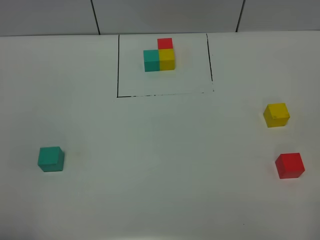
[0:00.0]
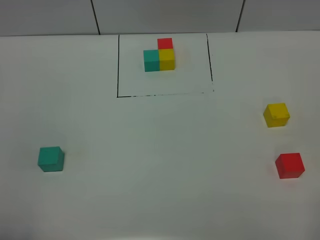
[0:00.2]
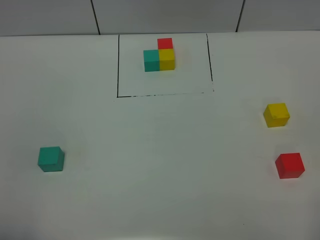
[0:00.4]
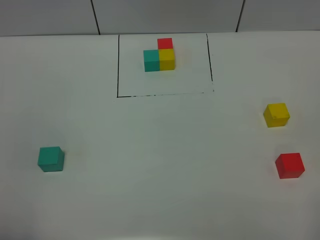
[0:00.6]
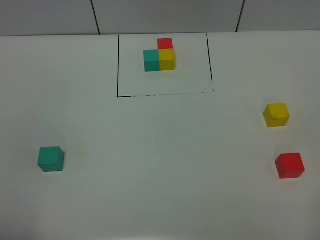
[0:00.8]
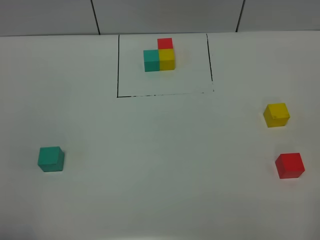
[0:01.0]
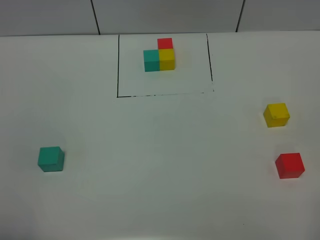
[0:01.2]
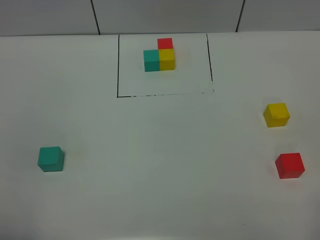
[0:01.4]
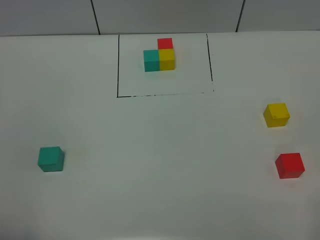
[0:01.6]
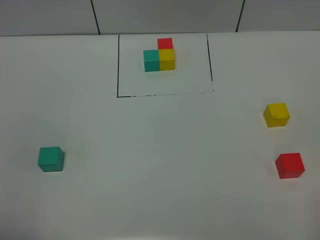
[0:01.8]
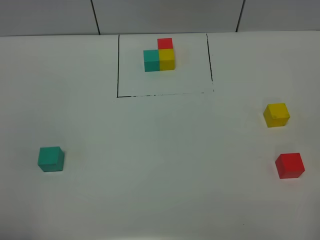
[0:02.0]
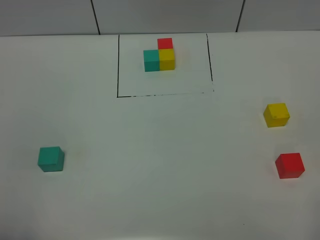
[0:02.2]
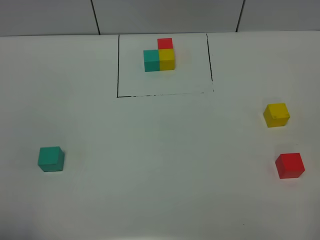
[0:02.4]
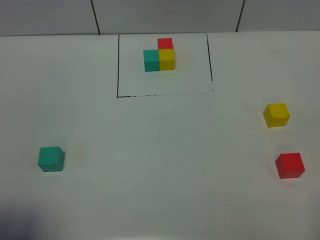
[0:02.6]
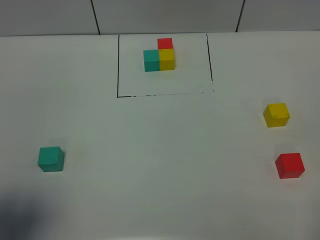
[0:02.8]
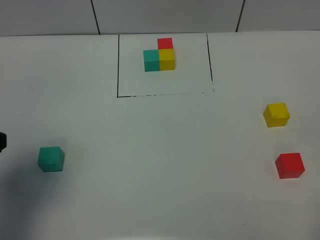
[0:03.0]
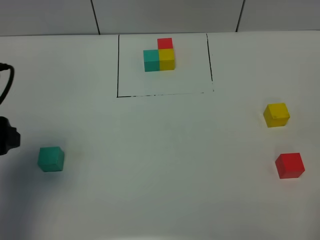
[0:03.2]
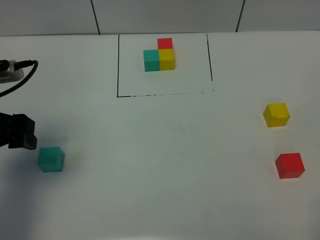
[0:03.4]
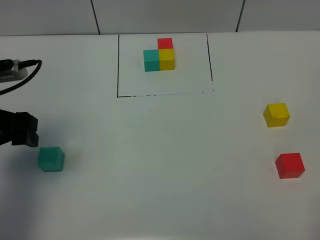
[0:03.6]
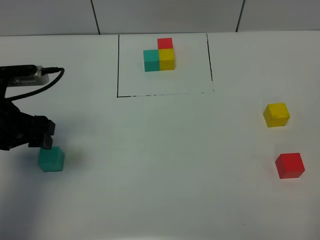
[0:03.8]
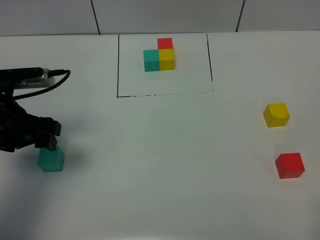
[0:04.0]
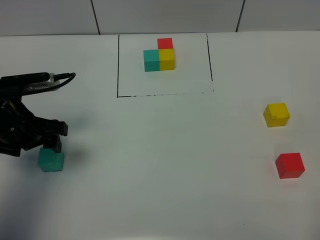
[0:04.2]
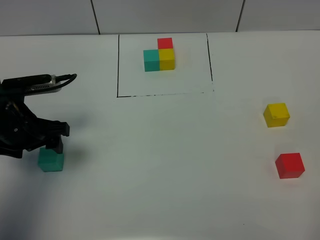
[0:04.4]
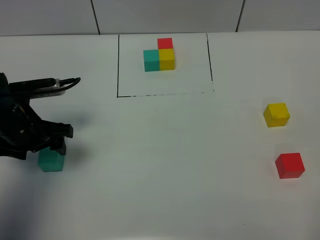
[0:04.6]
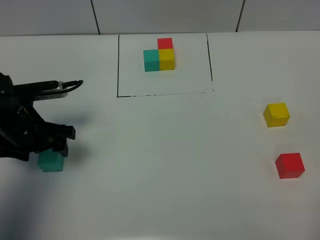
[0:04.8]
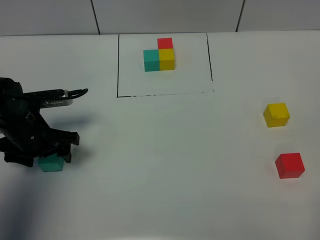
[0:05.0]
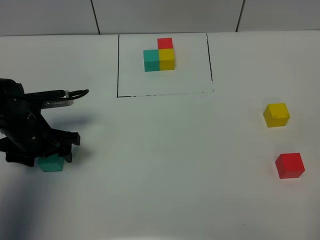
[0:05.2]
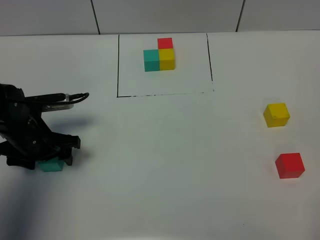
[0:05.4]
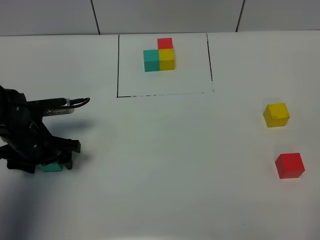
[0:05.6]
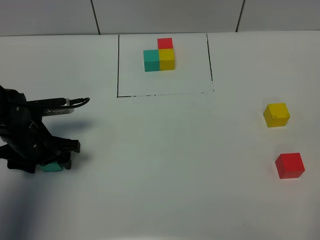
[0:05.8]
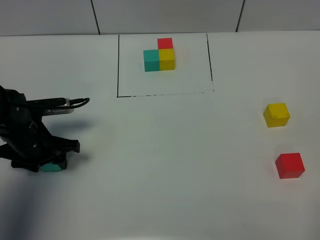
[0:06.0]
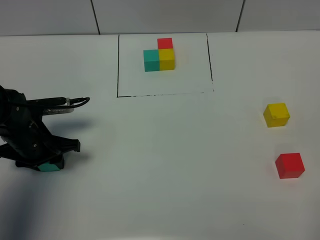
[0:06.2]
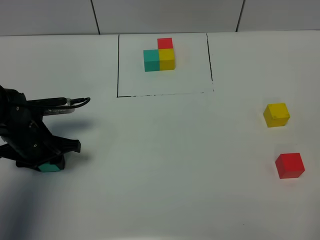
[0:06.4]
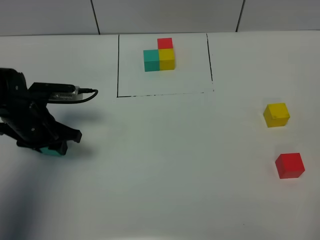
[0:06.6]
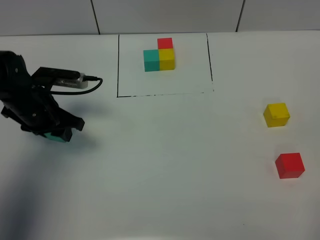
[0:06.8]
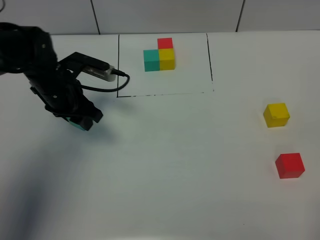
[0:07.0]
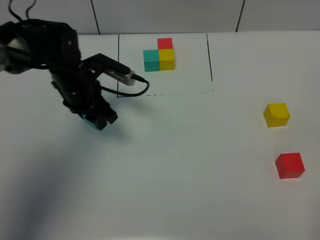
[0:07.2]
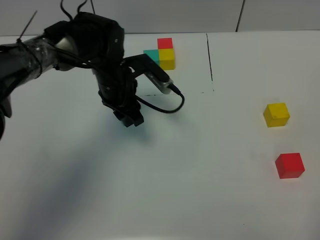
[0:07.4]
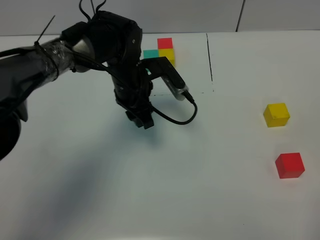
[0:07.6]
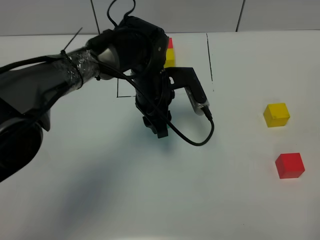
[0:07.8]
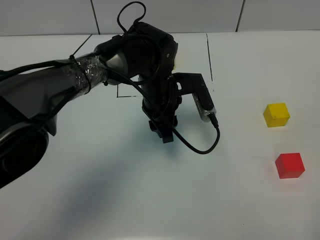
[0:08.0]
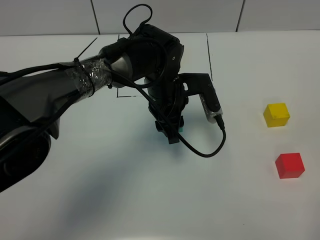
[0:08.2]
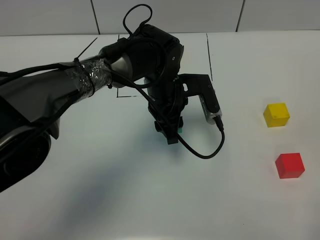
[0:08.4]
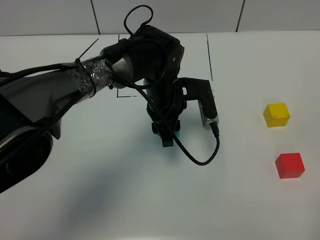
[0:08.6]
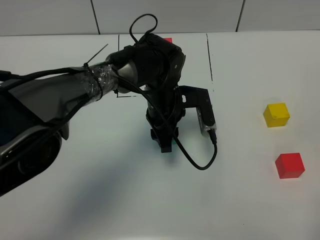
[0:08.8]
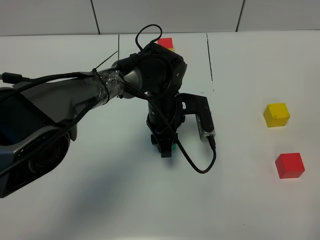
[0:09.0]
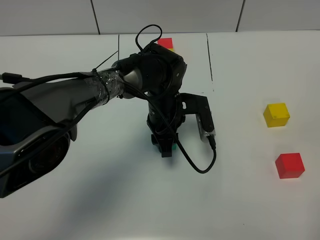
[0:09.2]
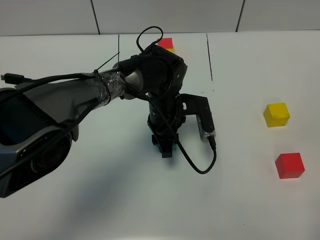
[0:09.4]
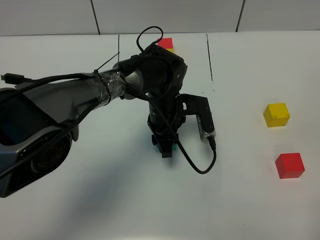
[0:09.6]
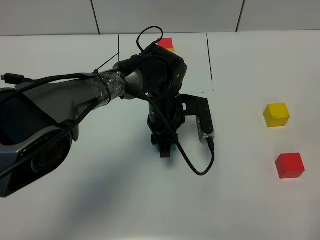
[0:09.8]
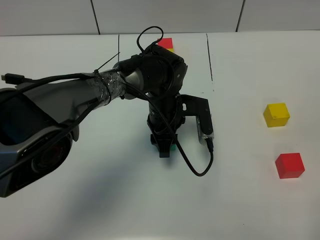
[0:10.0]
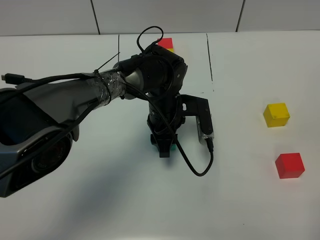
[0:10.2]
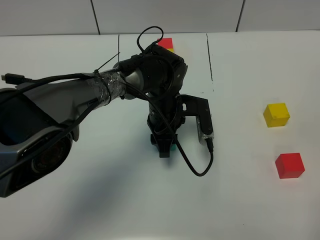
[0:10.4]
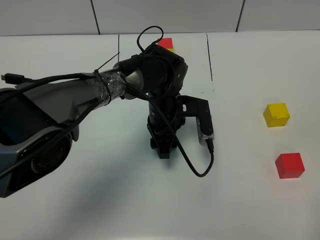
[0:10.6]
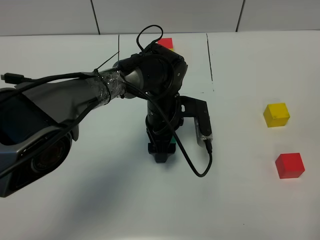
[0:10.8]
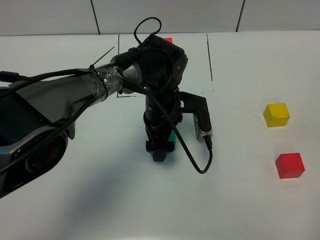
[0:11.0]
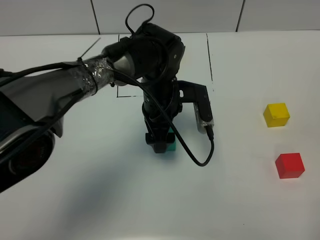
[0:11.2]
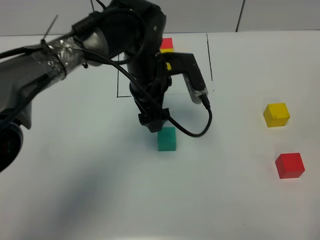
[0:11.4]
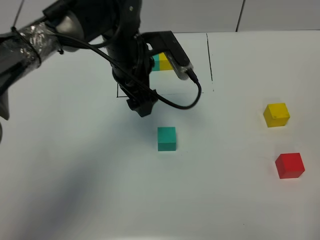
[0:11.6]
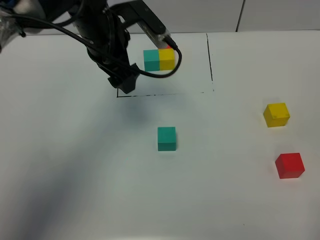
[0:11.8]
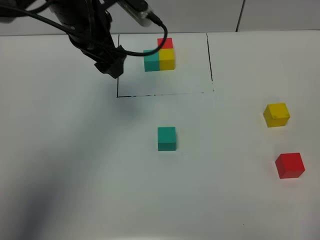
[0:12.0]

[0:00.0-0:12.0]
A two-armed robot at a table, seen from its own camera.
Task of the whole recording: According to the building block template in front, assemble the scattered blocks together.
Step, 0:00.0 to 0:10.6: Put the green build block in the center of the table.
0:00.0 to 0:01.6: Both grippers stay about where they are.
0:01.6 to 0:03.0: The left gripper shifts about 15 cm forward.
0:03.0 to 0:04.4: The left gripper shifts about 15 cm forward and downward.
0:04.4 to 0:06.0: The left gripper heads downward, covering roughly 5 cm, and closes its fingers.
0:06.0 to 0:07.6: The left gripper travels to the right and forward by approximately 20 cm.
0:07.6 to 0:09.0: The left gripper travels to the right by approximately 5 cm.
0:09.0 to 0:10.4: Both grippers stay put.
0:10.4 to 0:12.0: The left gripper goes some 25 cm upward and to the left, and opens.

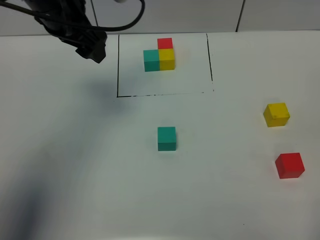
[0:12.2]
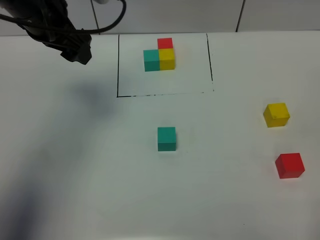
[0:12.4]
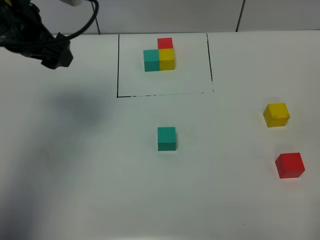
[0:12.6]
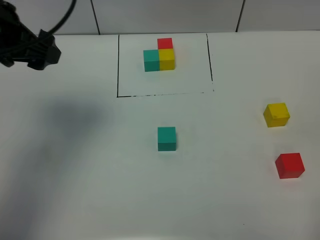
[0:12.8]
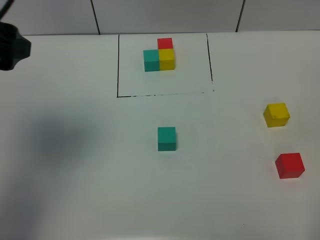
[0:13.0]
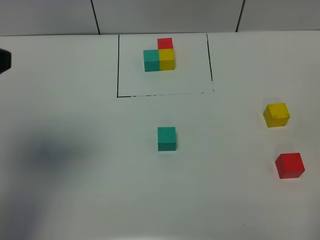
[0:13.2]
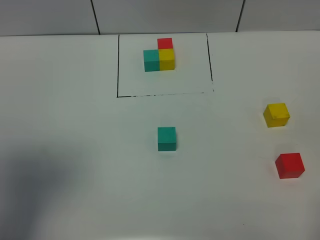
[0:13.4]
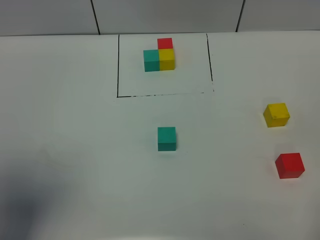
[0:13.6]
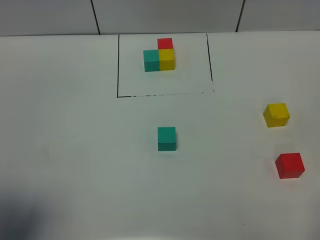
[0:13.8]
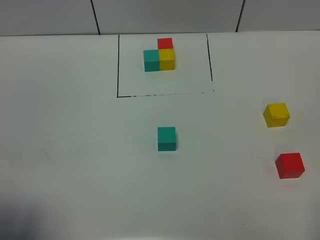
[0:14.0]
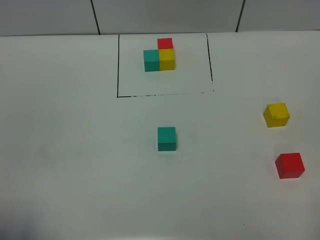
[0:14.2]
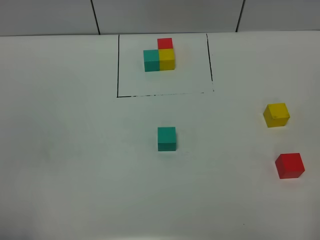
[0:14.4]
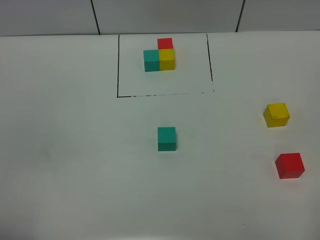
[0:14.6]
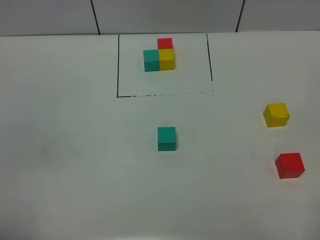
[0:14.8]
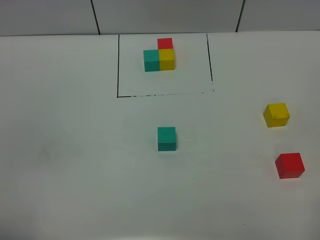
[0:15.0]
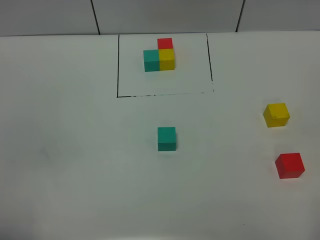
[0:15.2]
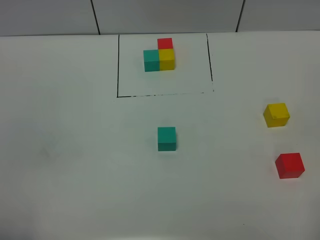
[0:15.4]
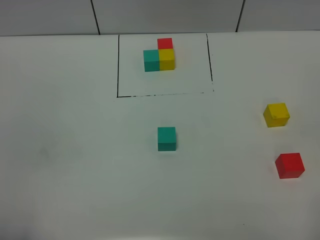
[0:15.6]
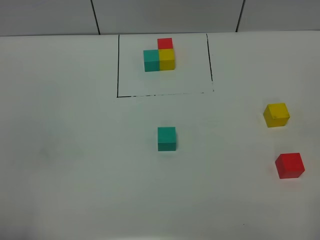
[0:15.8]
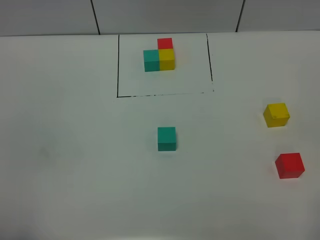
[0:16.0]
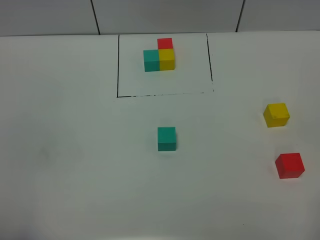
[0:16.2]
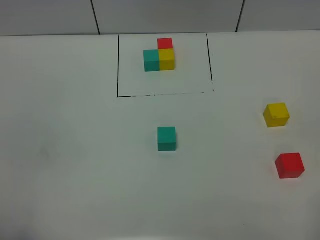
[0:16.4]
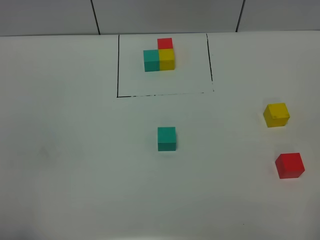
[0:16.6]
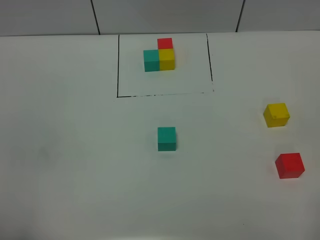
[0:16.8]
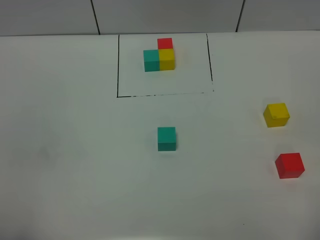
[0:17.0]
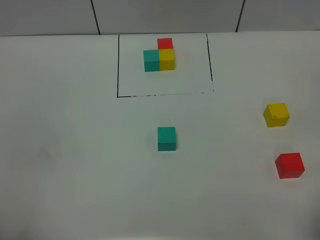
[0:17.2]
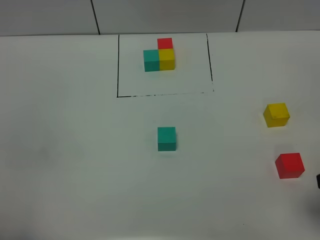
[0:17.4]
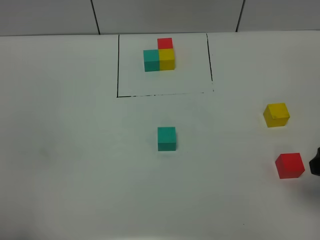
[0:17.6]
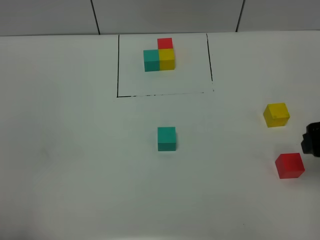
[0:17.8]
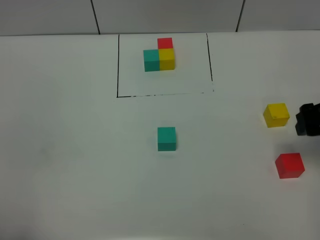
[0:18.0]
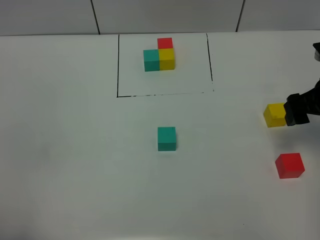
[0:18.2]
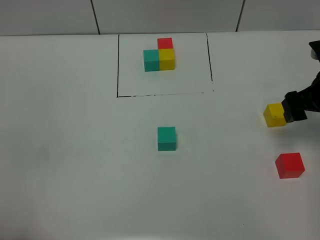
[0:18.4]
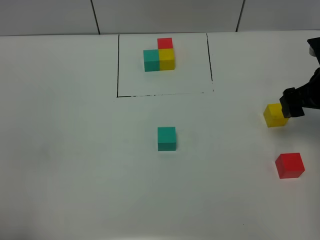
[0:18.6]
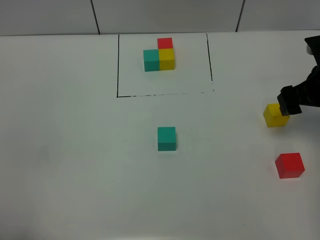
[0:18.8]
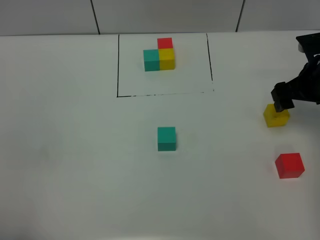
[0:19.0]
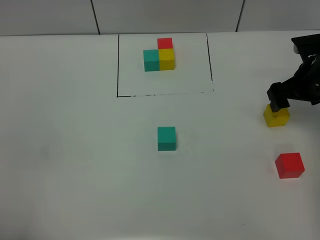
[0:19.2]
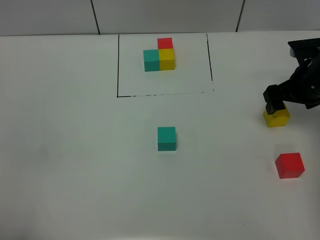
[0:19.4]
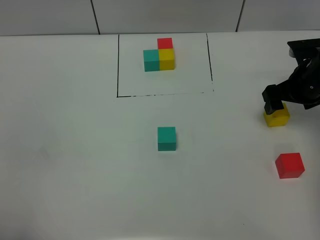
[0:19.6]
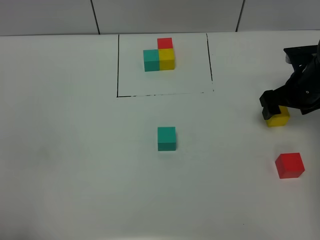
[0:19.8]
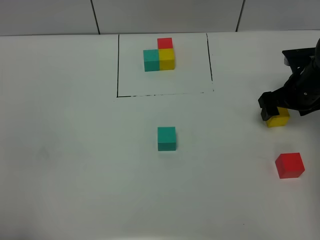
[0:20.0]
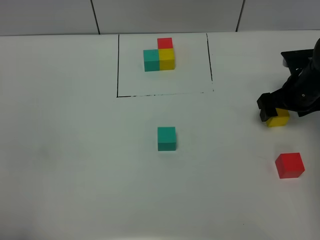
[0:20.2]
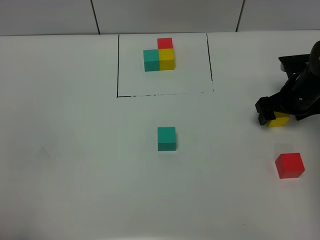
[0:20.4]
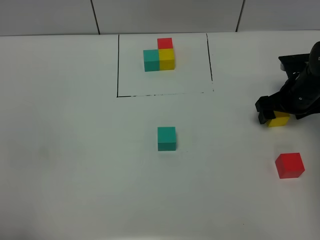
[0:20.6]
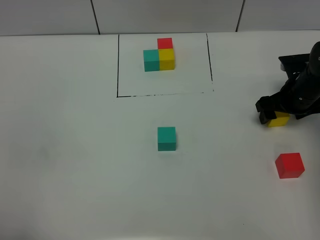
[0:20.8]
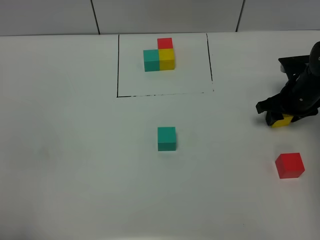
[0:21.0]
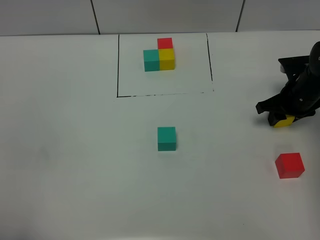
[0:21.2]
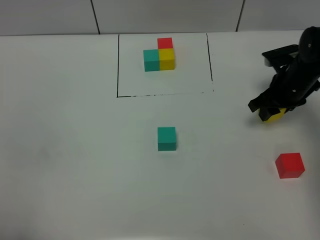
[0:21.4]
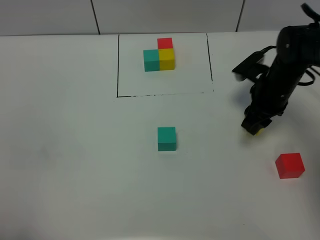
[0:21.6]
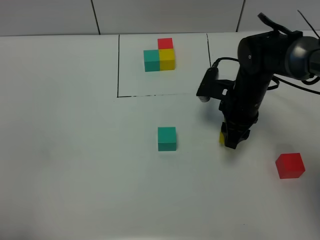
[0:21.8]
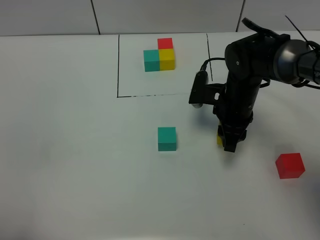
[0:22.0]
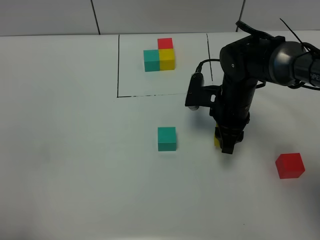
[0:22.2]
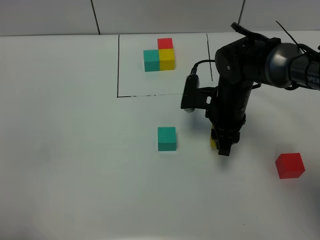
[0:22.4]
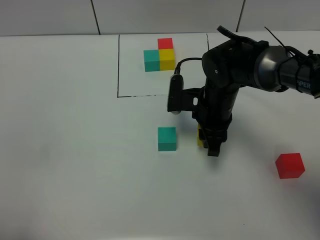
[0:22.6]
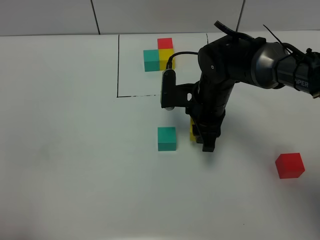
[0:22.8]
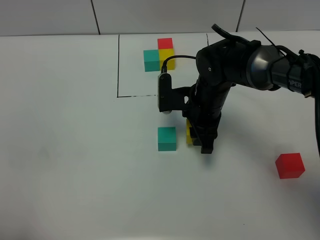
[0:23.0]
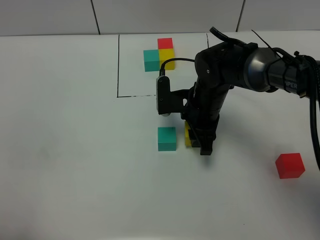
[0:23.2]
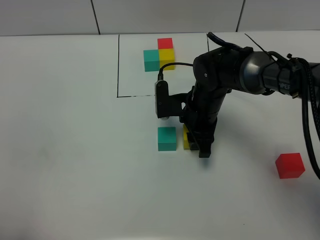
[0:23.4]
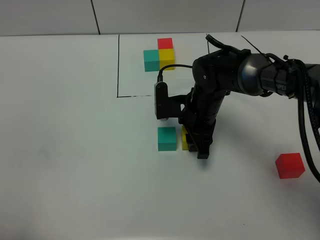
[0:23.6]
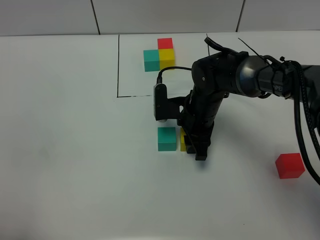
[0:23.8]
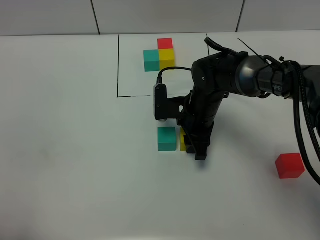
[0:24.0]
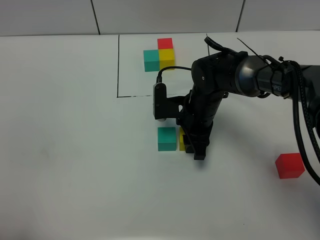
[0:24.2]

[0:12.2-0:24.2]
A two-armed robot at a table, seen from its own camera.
Task of the whole recording: According to the building block template in front, assemble the scattered blocks together.
0:12.2 to 0:13.8: The left gripper shifts some 35 cm backward.
0:13.8 to 0:15.2: The left gripper travels backward and downward by some 10 cm.
0:16.6 to 0:18.2: The right gripper goes approximately 30 cm forward.
0:18.2 to 0:19.8: The right gripper shifts roughly 10 cm downward and forward.
0:19.8 to 0:21.2: The right gripper closes up.
0:21.2 to 0:22.6: The right gripper shifts some 20 cm to the left.
0:22.6 to 0:24.2: The grippers make only small movements.
